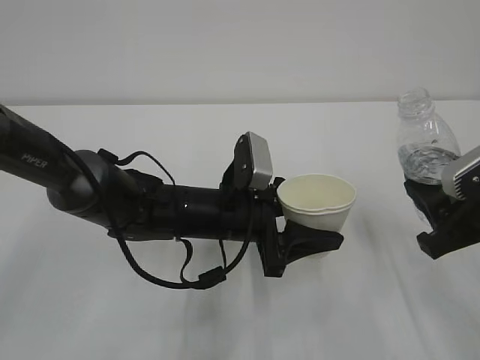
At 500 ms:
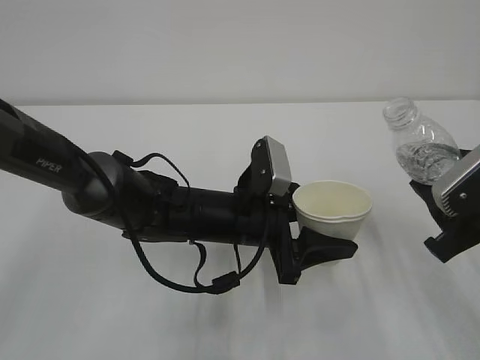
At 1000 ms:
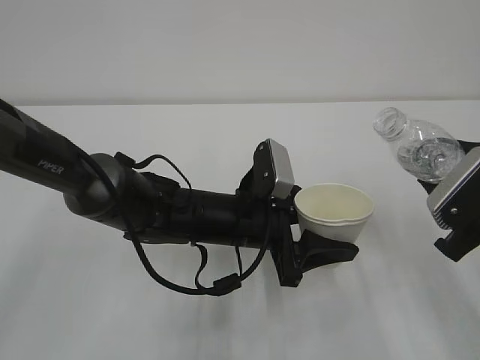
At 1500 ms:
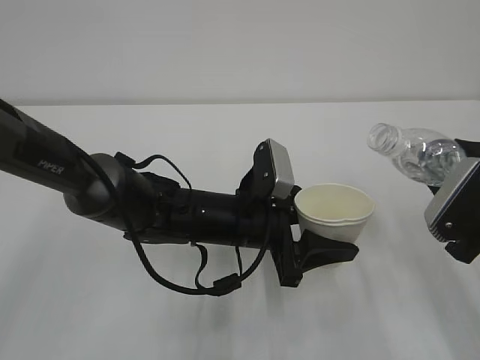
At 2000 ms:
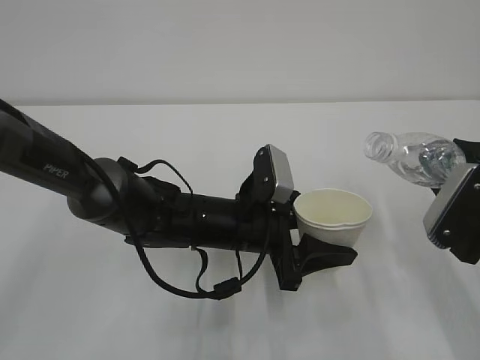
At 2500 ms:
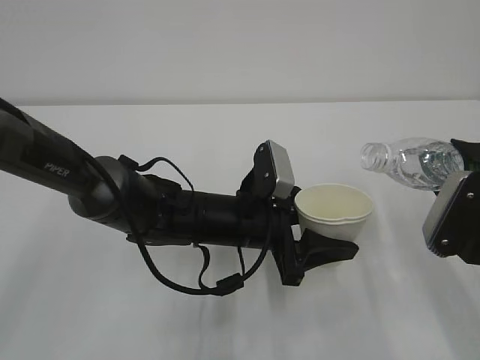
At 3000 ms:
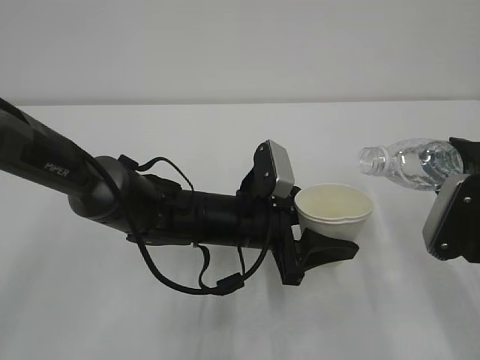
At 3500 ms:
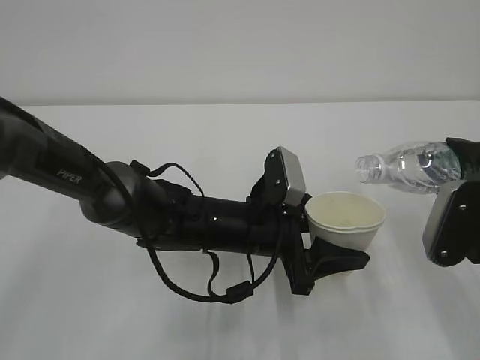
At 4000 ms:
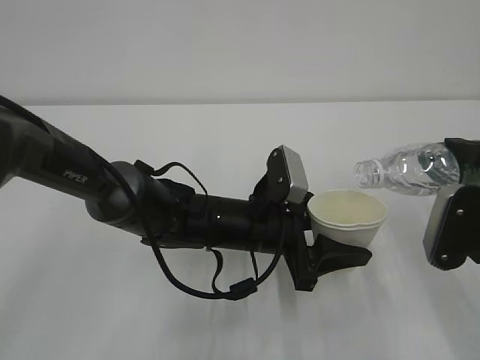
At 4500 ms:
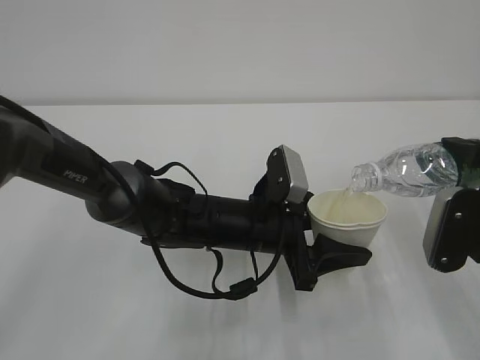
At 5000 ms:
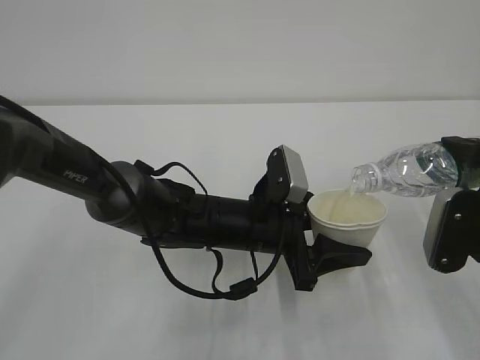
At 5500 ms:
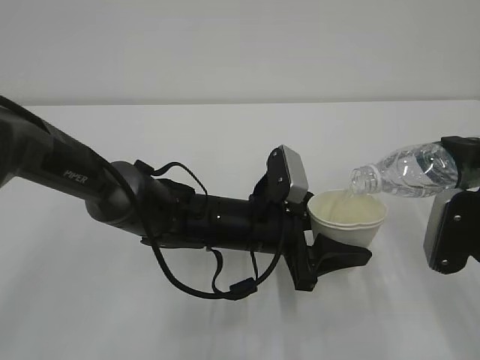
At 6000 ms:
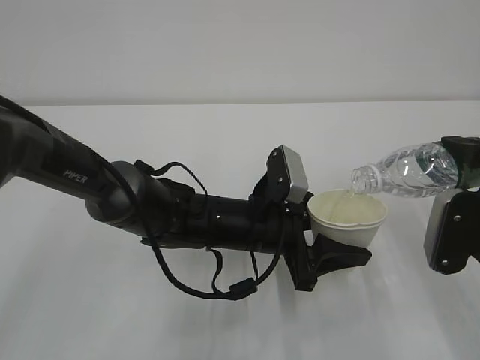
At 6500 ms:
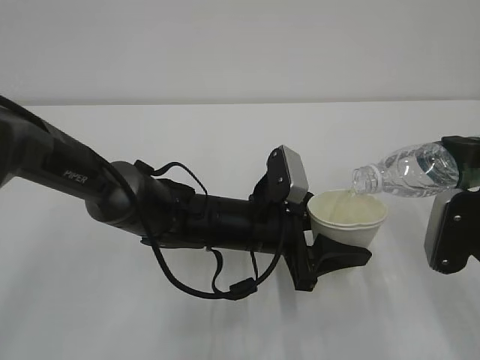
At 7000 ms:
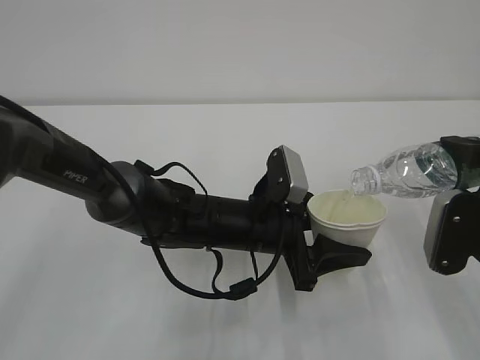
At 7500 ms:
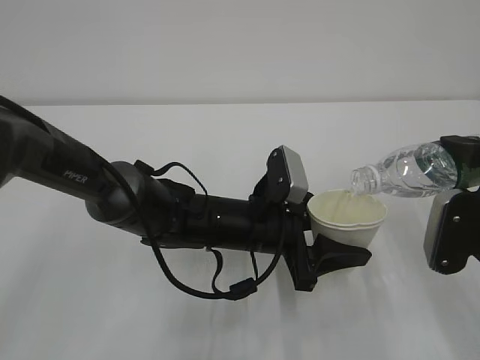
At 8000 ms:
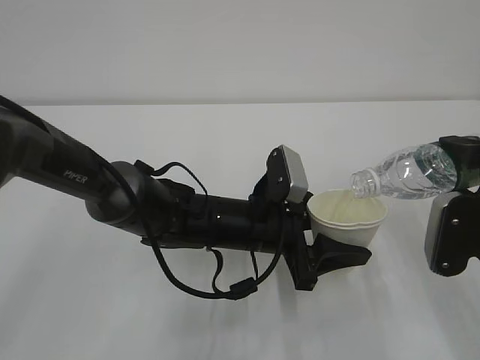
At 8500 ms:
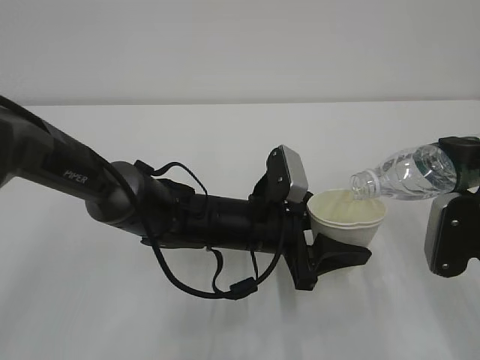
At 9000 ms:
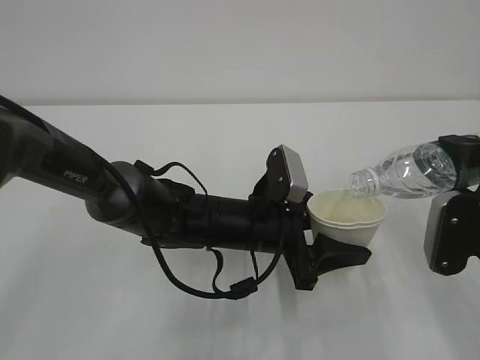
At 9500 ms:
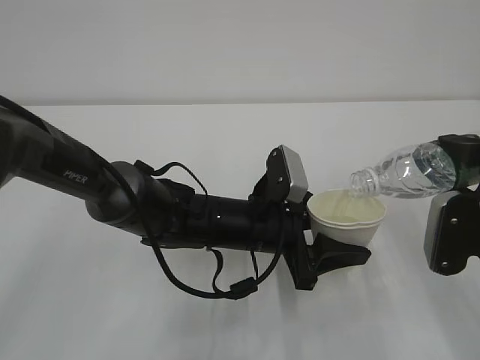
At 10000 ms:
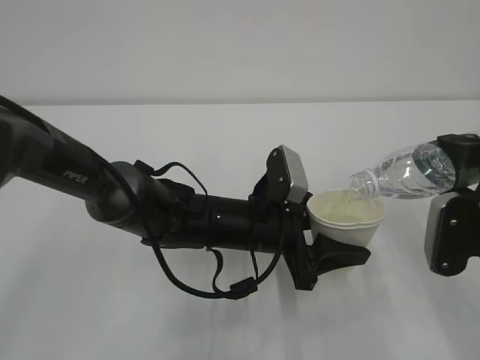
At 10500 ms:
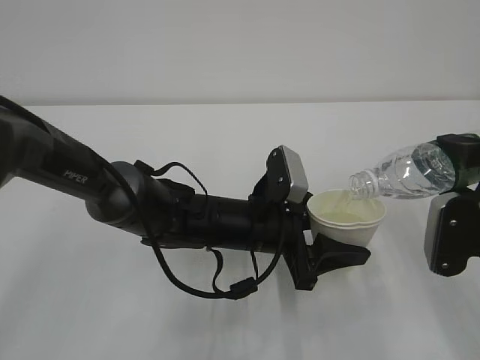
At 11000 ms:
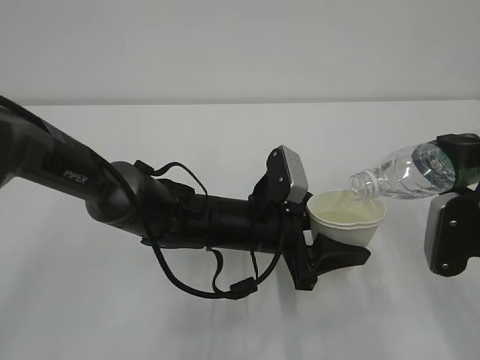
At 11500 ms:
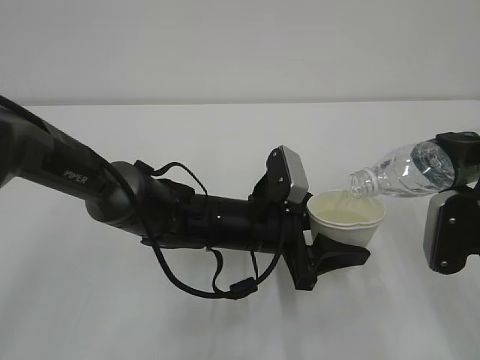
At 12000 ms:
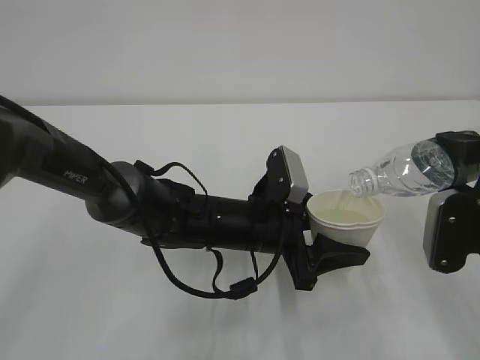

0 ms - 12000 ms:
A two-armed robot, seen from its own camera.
2000 ms - 4000 ms: The grippers stay close to where they were, moving slightly.
4000 ms - 6000 ms: Both grippers stay put.
6000 ms - 12000 ms: Neither gripper changes place.

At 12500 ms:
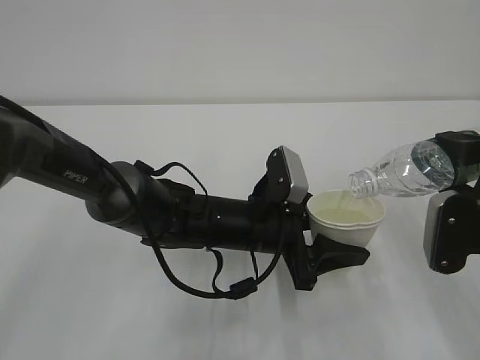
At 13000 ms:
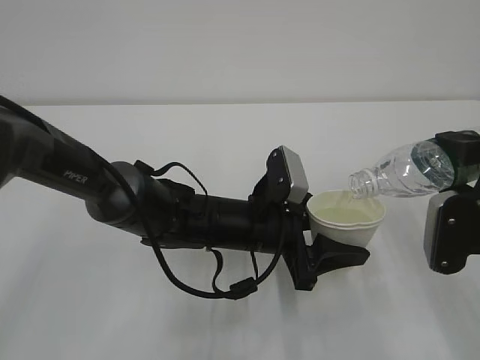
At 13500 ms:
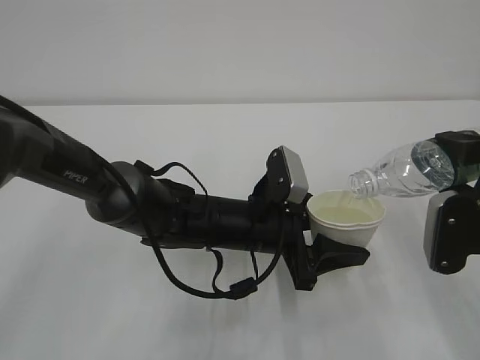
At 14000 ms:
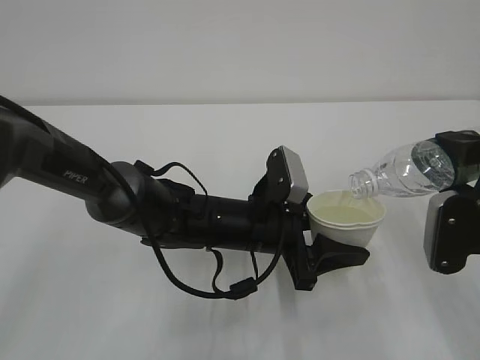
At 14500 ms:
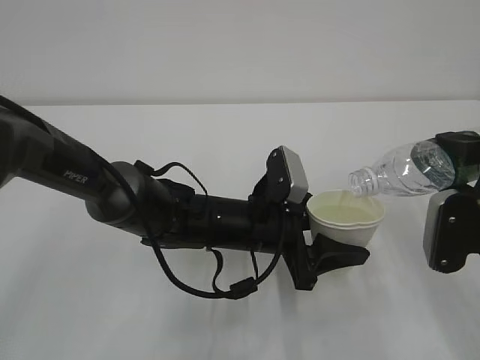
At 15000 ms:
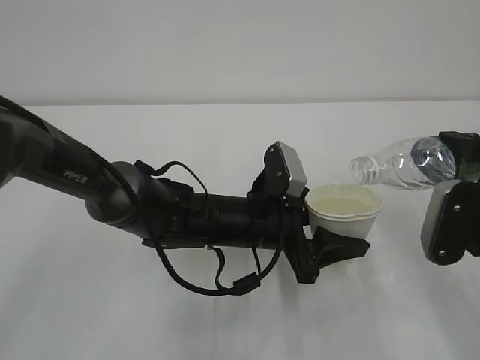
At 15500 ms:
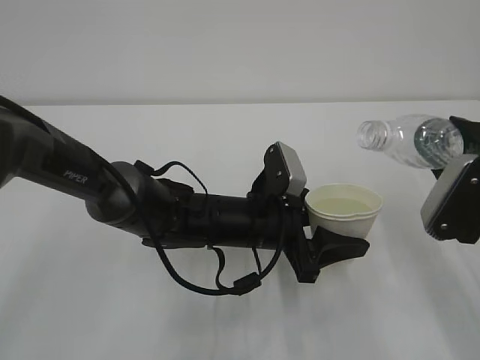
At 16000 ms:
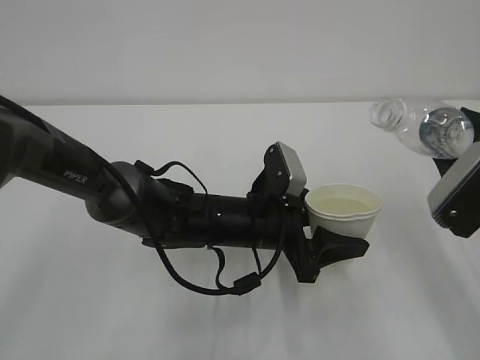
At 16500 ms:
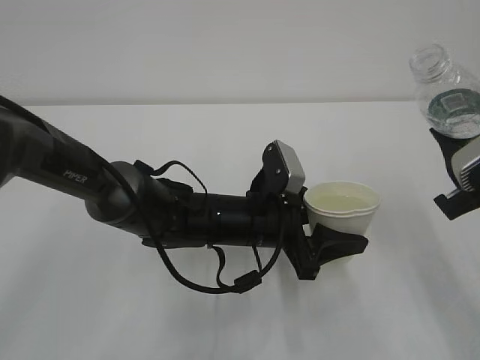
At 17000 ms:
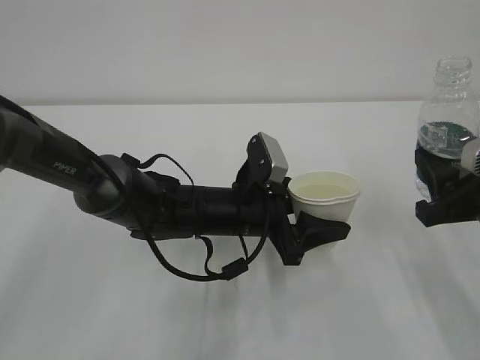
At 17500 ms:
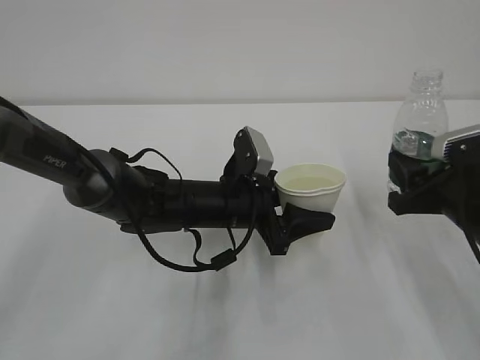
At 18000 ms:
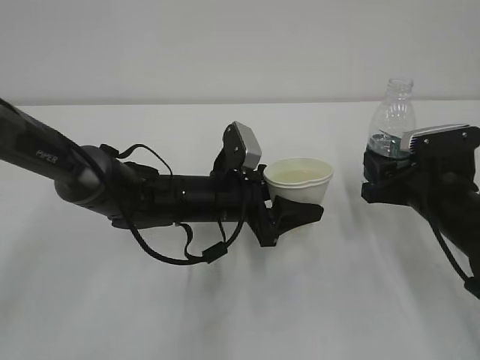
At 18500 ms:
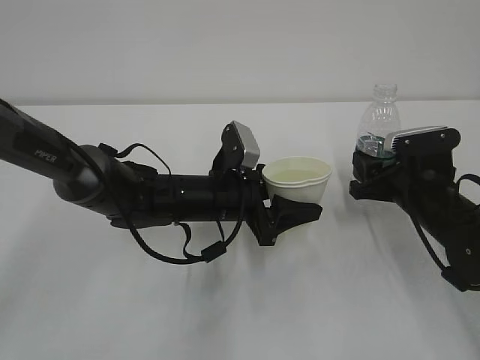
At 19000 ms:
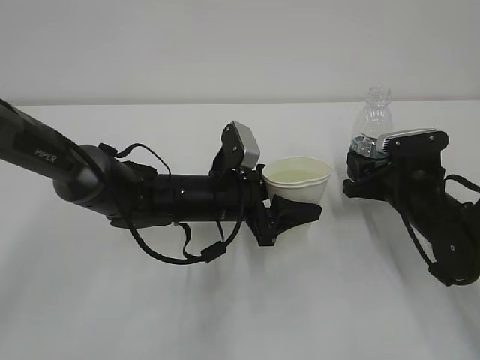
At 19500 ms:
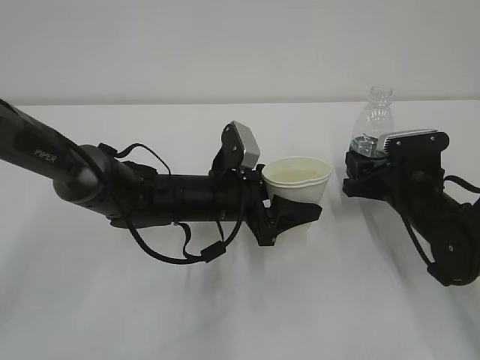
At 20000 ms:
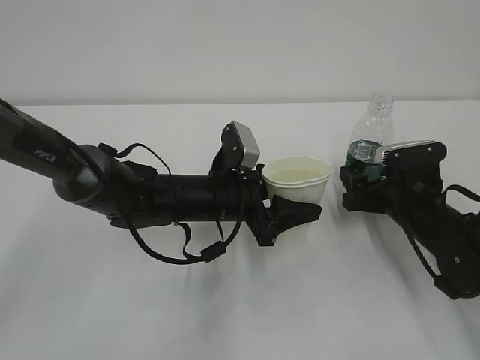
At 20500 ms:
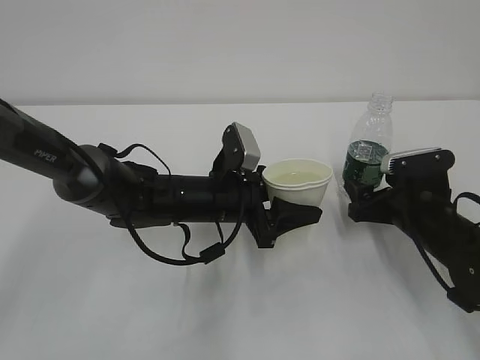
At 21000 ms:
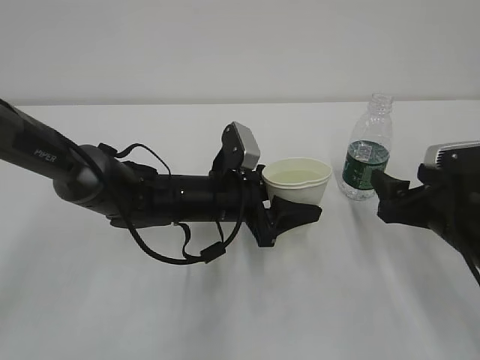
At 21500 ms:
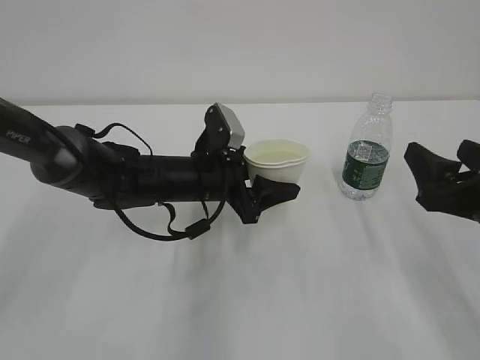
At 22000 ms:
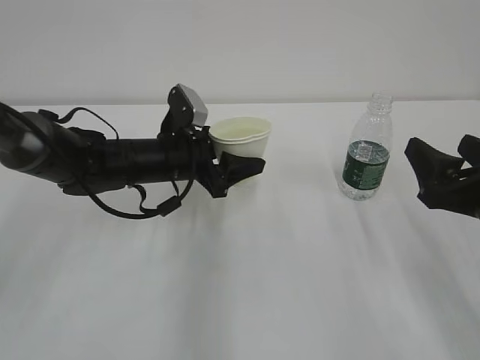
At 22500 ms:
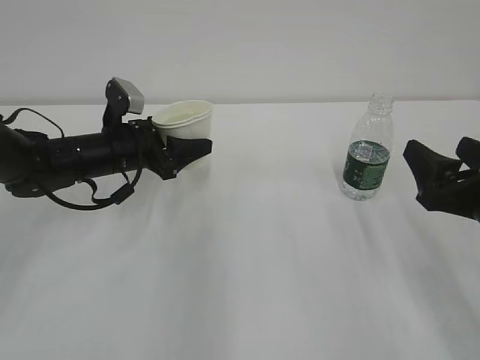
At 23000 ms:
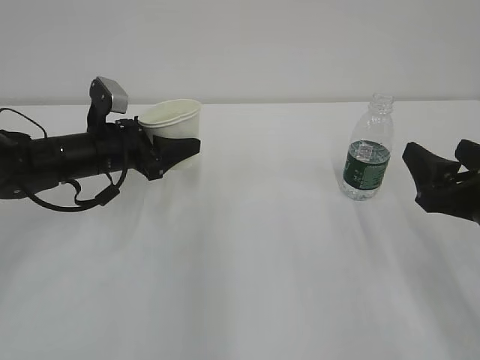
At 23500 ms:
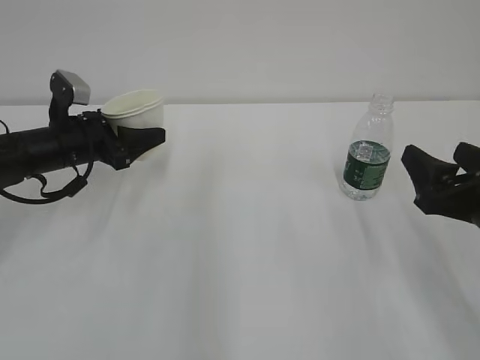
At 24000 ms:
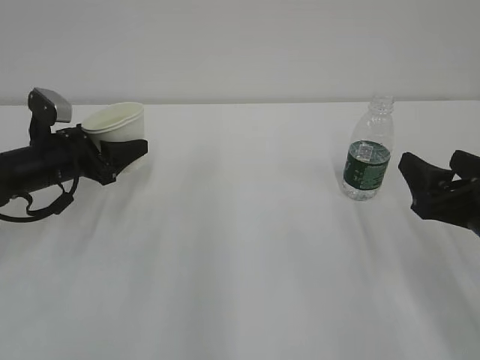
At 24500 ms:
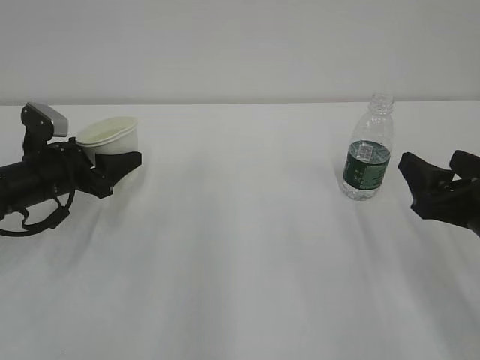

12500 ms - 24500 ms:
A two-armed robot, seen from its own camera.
12500 ms - 14500 ms: Neither gripper changes place.
16500 ms - 18500 ms: The left gripper changes place by some 5 cm, while the right gripper goes approximately 15 cm forward and downward.
18500 ms - 20500 ms: The right gripper opens its fingers.
20500 ms - 22500 ms: The right gripper moves upward and backward, approximately 15 cm; the left gripper shifts roughly 15 cm to the left and forward.
22500 ms - 24500 ms: The left gripper heads to the left, covering some 10 cm.

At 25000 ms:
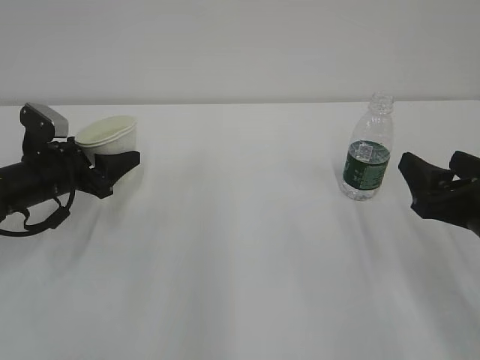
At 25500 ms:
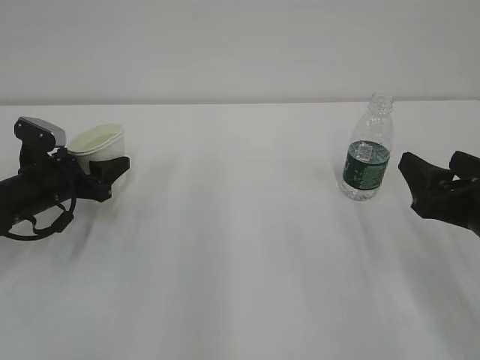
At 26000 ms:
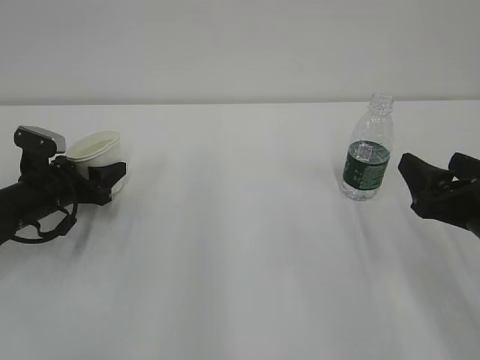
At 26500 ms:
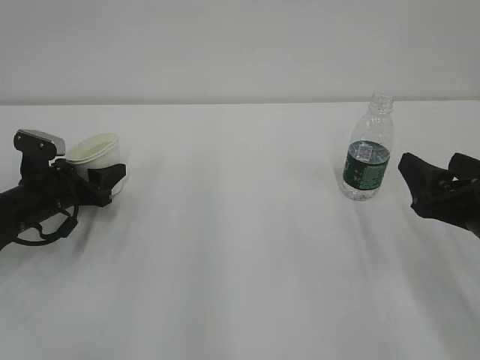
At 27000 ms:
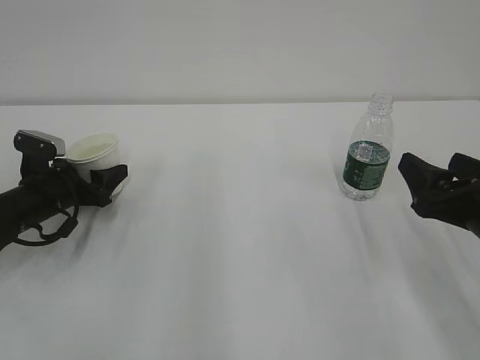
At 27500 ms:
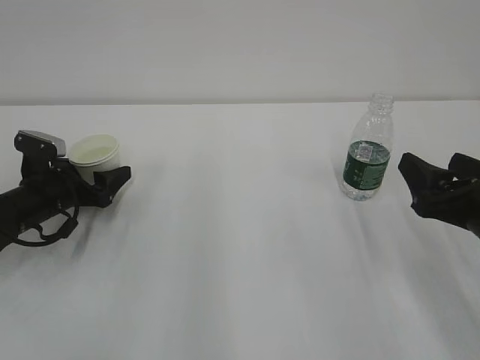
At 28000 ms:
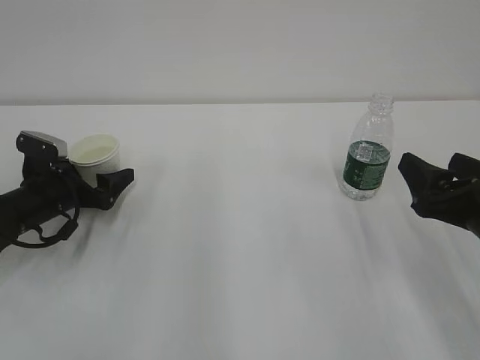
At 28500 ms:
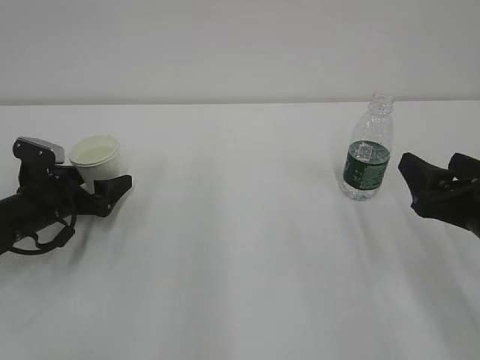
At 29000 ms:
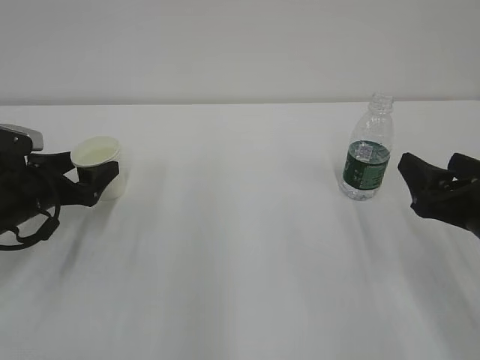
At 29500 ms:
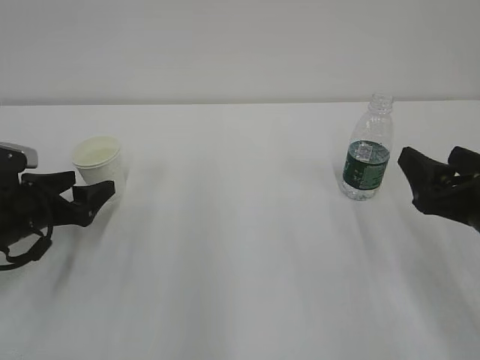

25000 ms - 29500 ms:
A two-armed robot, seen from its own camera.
25000 ms - 27000 ms: There are only small adjustments of the grippers.
27000 ms - 29500 ms: The left gripper heads backward, covering roughly 5 cm, and opens.
